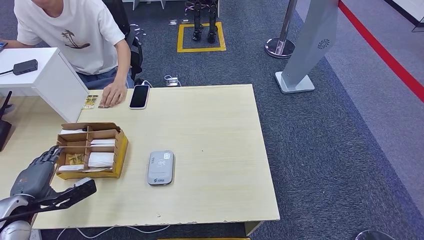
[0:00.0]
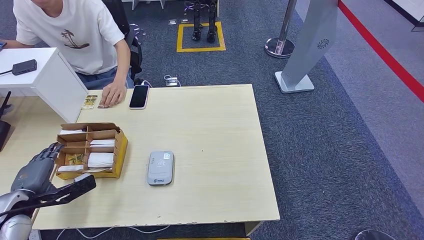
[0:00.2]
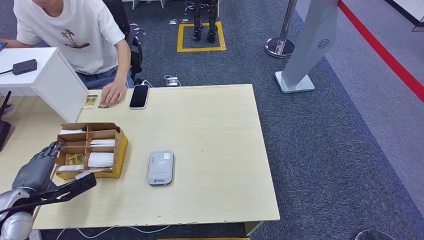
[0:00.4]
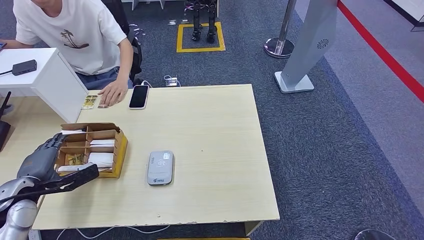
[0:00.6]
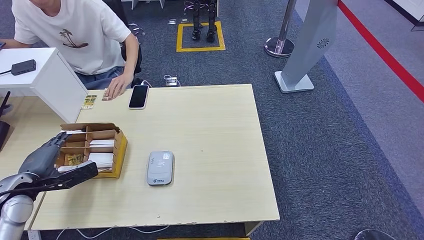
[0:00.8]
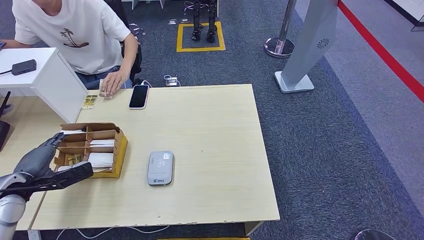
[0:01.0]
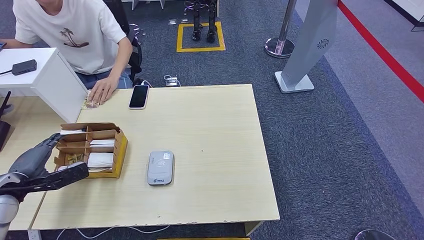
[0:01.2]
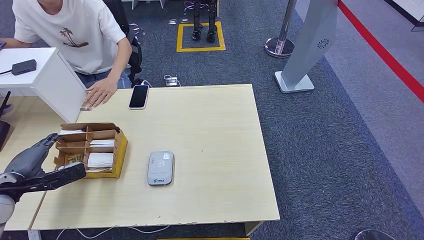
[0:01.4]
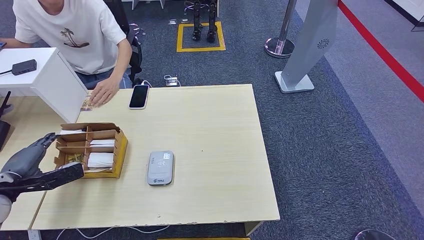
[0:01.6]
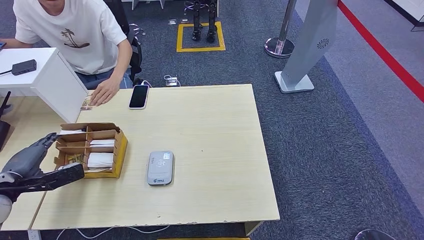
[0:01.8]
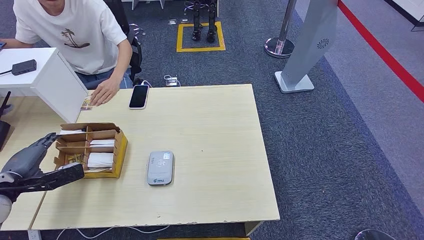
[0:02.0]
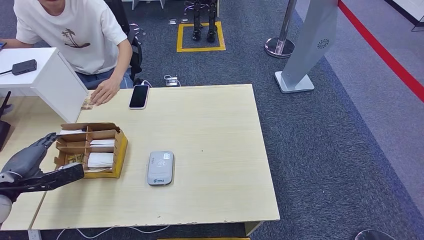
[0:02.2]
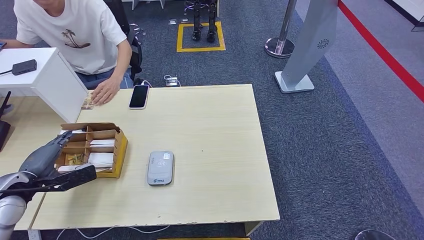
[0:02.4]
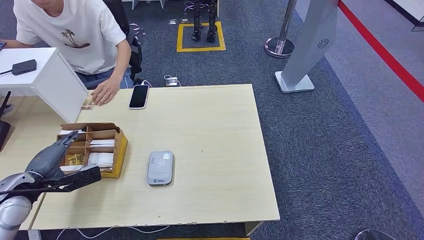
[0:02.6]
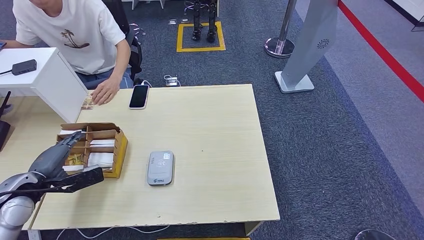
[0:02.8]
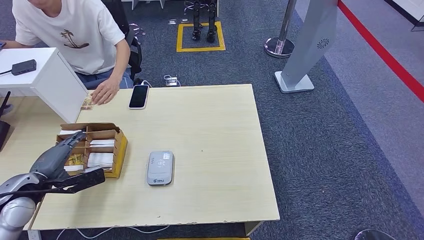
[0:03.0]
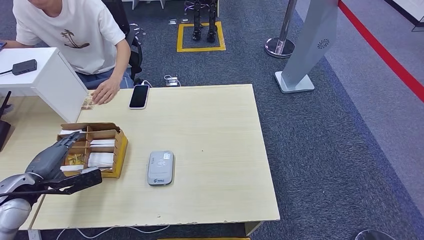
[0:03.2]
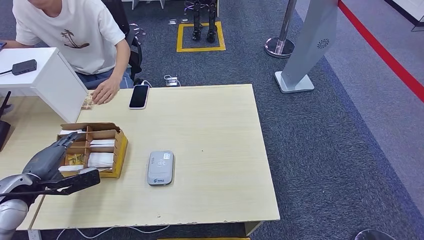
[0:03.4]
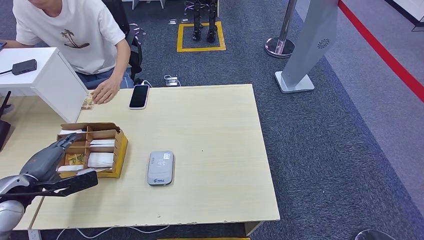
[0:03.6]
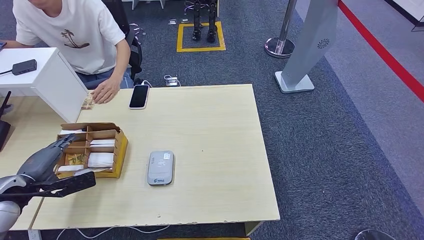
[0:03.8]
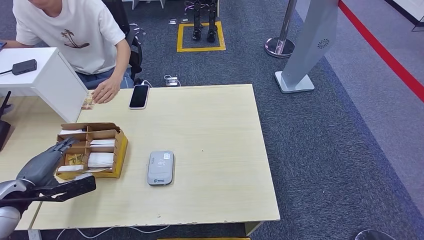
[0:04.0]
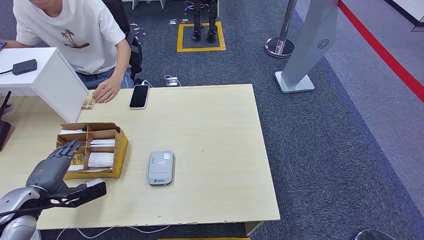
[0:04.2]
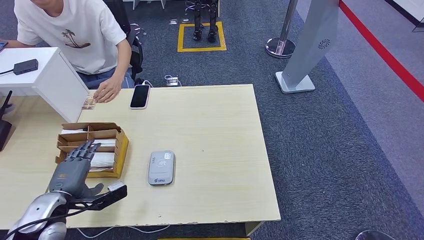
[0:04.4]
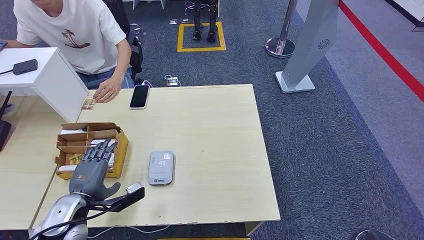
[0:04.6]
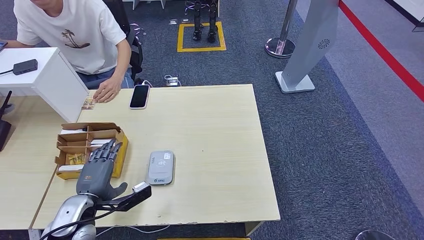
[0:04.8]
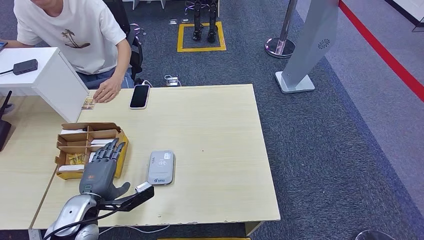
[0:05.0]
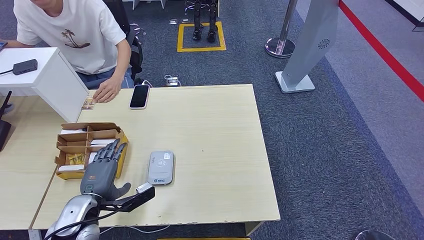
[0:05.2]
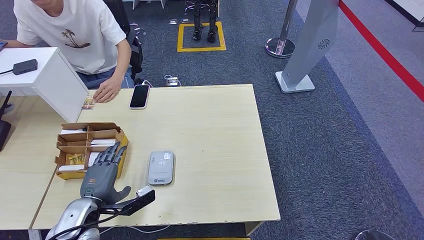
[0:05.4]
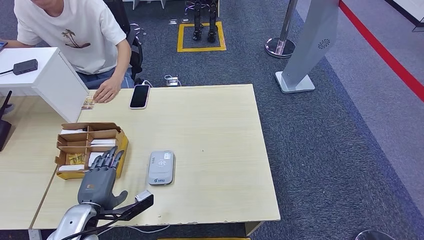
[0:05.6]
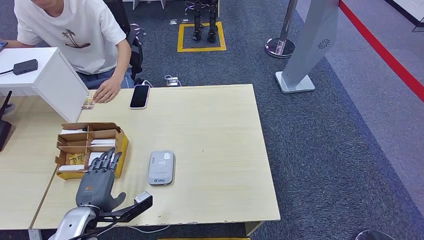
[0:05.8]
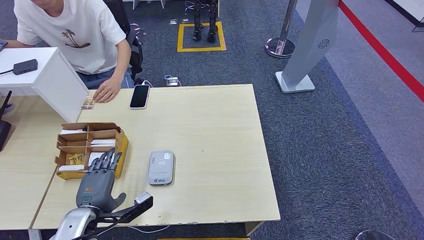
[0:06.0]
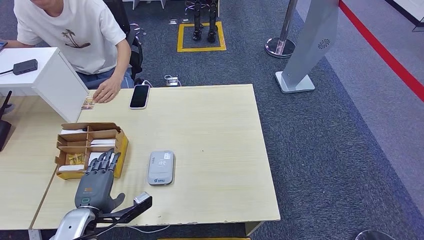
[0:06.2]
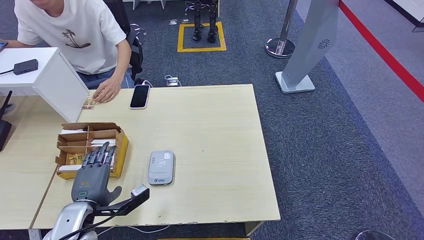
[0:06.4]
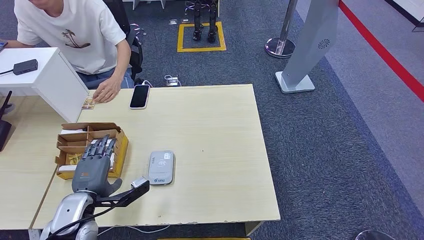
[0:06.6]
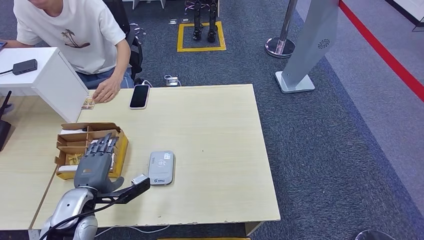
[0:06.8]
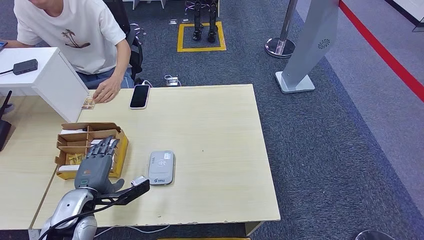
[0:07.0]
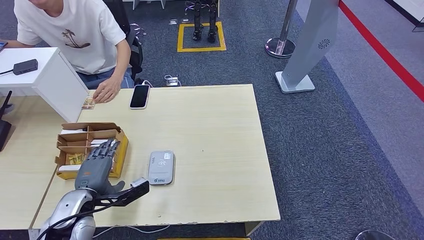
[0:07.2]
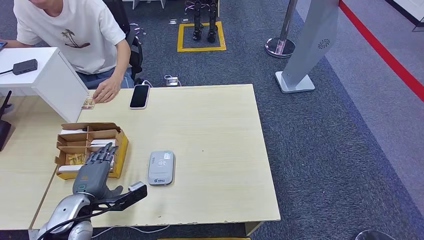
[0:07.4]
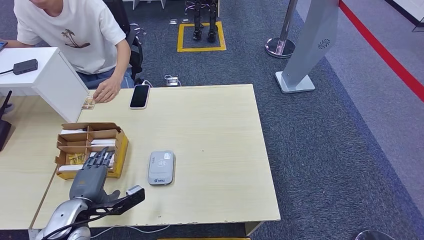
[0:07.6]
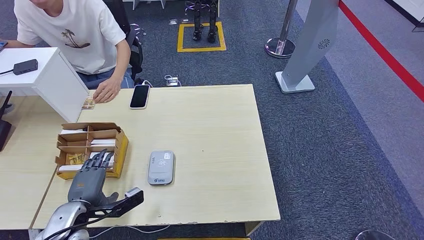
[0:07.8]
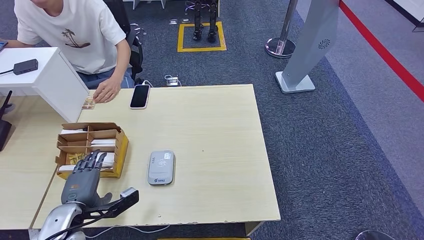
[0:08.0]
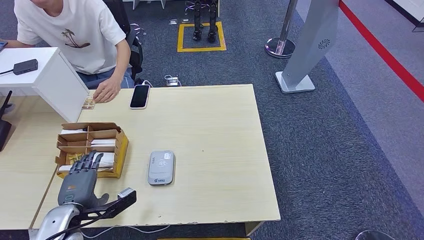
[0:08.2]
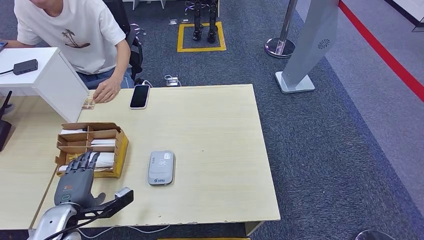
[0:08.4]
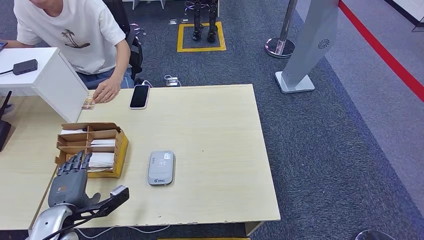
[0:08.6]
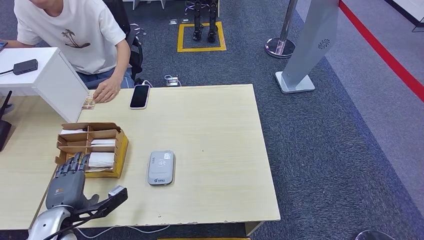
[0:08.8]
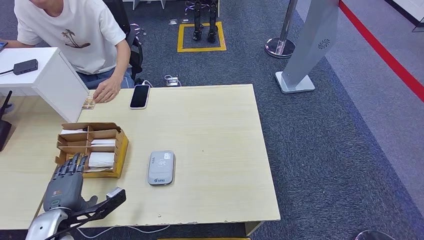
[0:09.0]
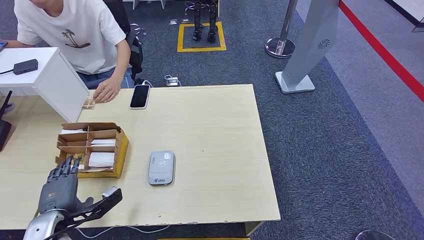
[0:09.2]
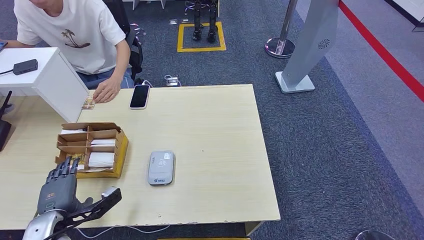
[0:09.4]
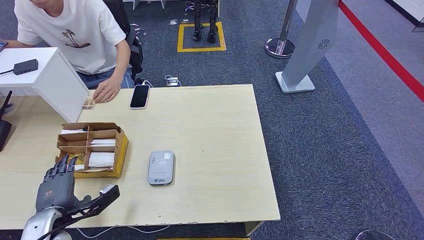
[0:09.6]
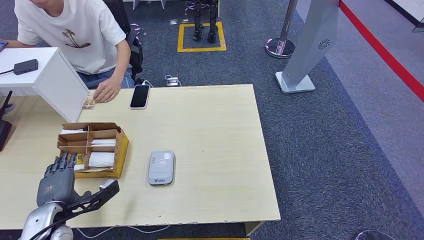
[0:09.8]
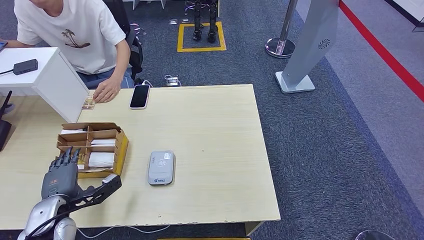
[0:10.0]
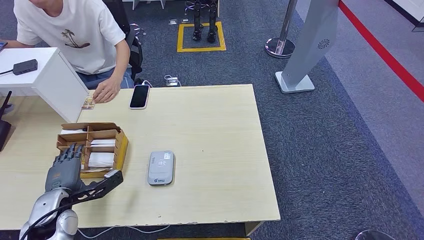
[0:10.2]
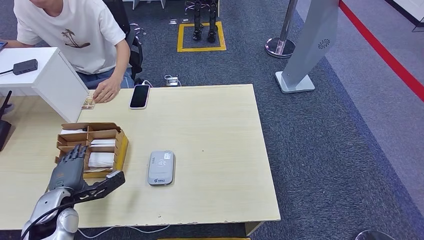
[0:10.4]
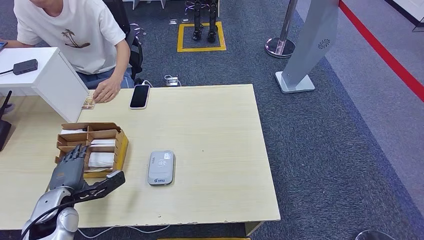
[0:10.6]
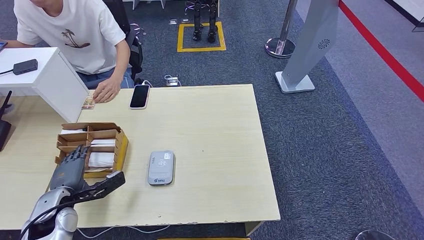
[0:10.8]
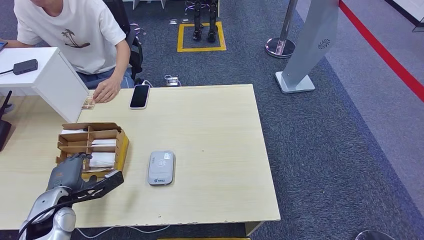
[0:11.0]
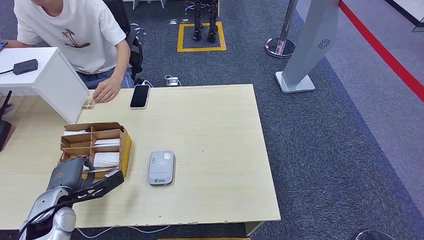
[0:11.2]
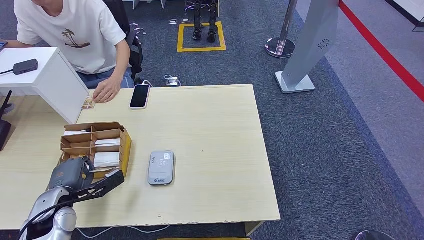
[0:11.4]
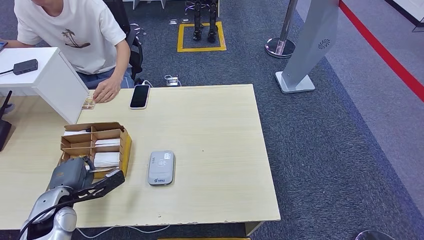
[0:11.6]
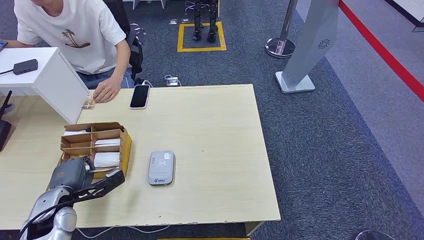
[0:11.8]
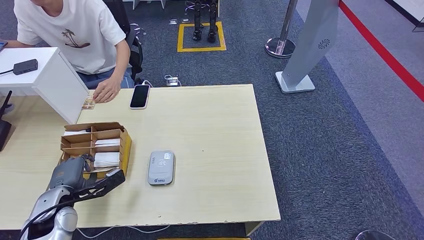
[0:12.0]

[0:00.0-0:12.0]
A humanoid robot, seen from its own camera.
0:00.0 to 0:01.6: The left hand changes place by approximately 5 cm.
0:01.6 to 0:03.0: The hands move only a little.
0:03.0 to 0:04.4: The left hand travels to the right by approximately 5 cm.
0:04.4 to 0:06.0: The left hand goes about 10 cm to the right.
0:06.0 to 0:09.0: The hands make only small movements.
0:09.0 to 0:10.4: The left hand goes roughly 5 cm forward.
0:10.4 to 0:12.0: The two hands keep their place.

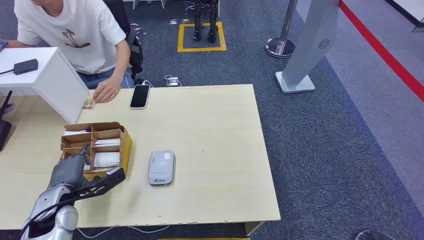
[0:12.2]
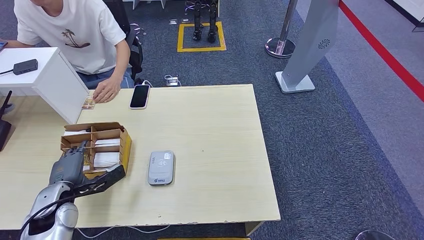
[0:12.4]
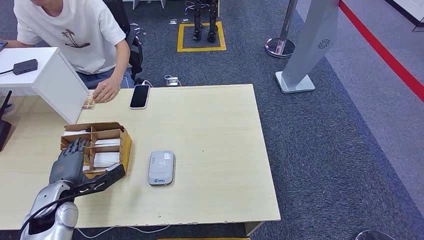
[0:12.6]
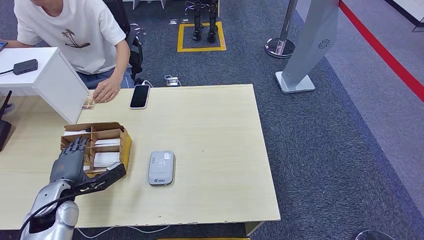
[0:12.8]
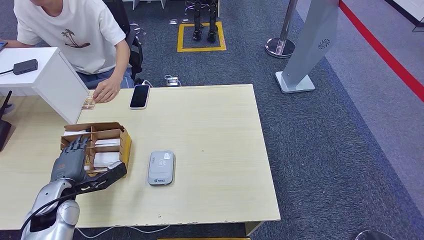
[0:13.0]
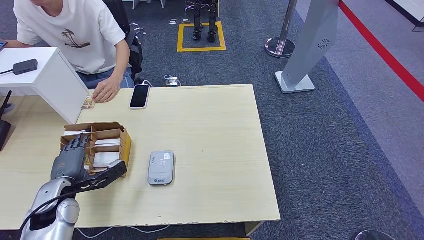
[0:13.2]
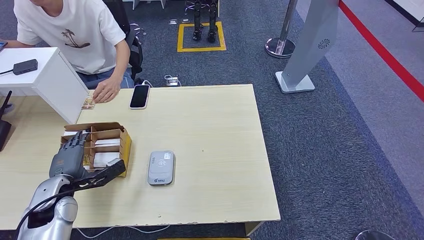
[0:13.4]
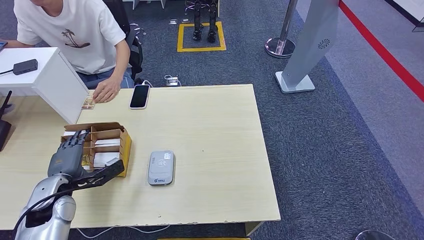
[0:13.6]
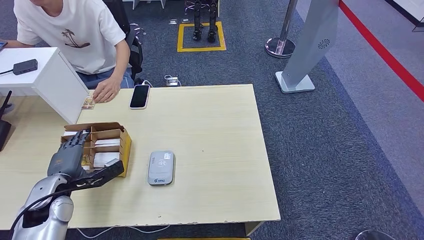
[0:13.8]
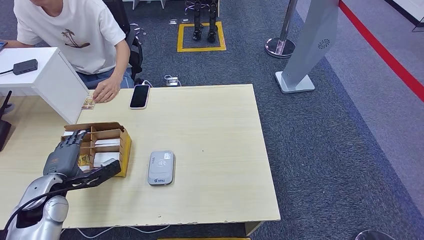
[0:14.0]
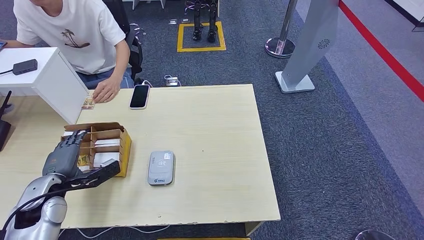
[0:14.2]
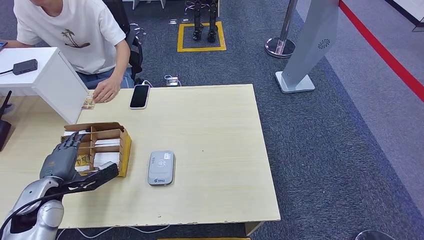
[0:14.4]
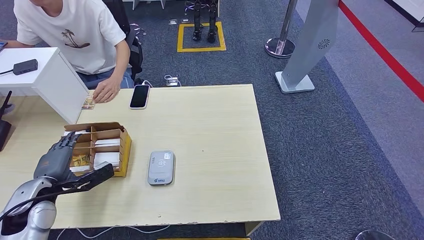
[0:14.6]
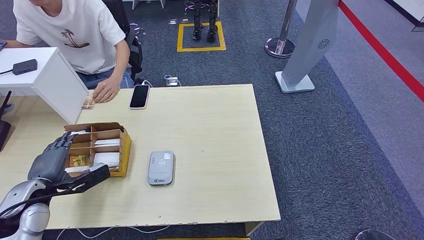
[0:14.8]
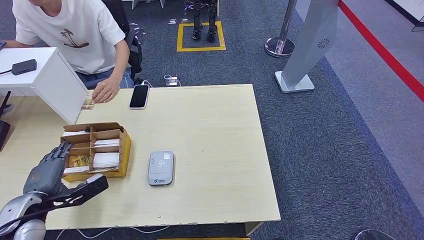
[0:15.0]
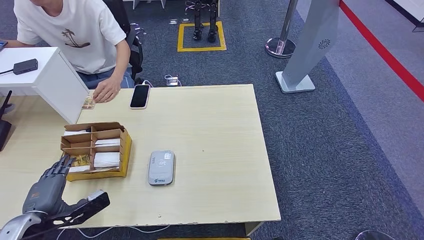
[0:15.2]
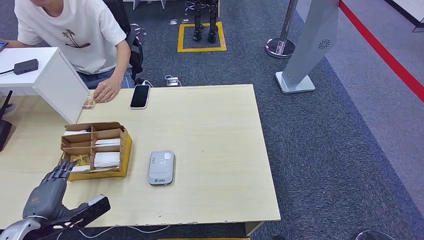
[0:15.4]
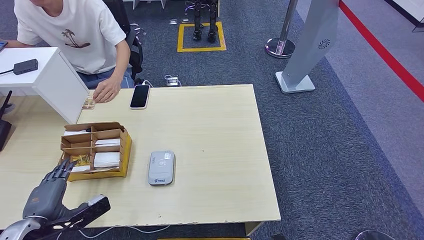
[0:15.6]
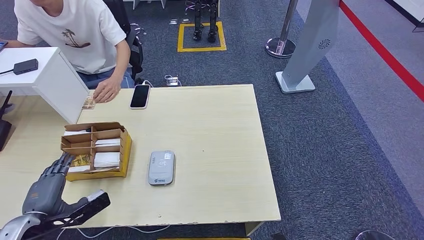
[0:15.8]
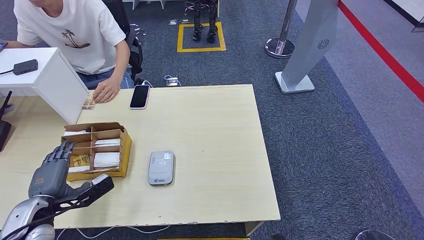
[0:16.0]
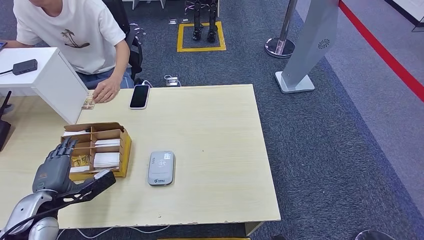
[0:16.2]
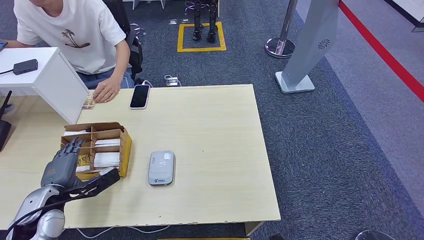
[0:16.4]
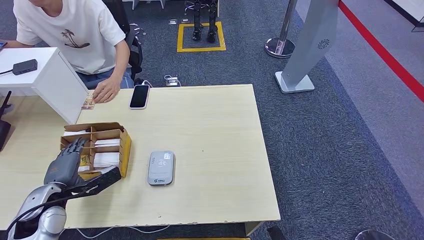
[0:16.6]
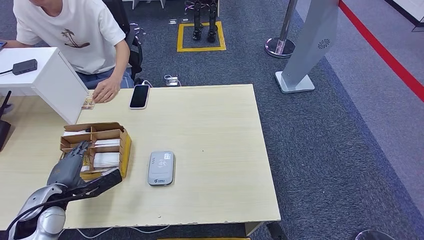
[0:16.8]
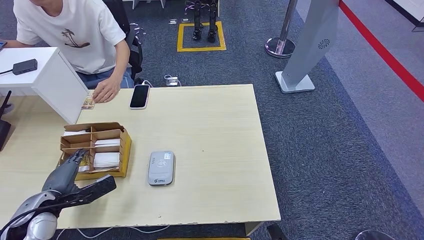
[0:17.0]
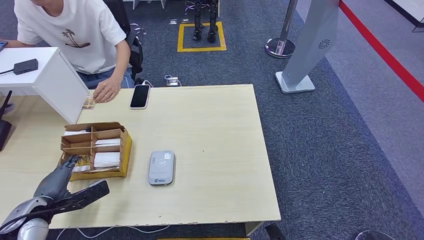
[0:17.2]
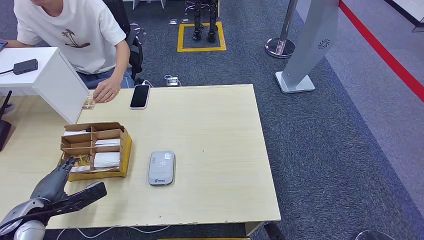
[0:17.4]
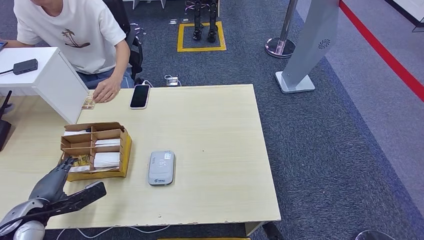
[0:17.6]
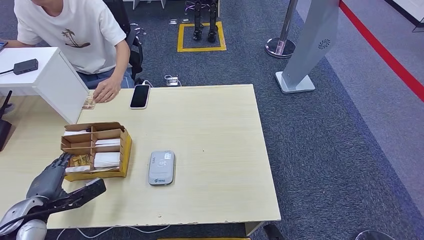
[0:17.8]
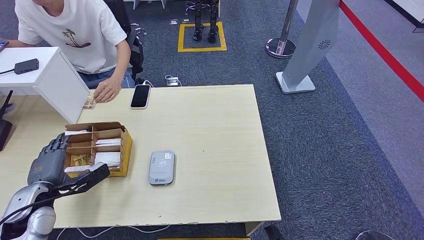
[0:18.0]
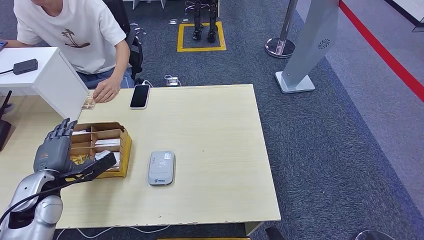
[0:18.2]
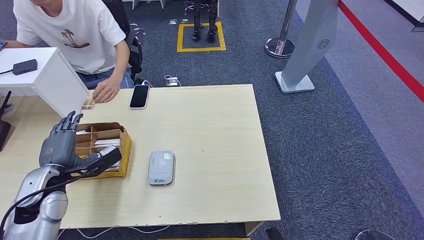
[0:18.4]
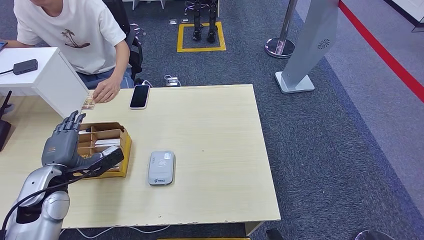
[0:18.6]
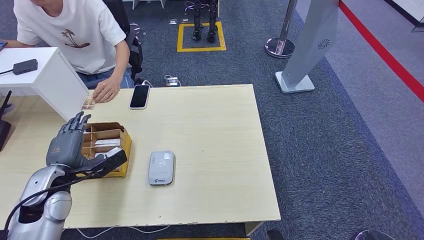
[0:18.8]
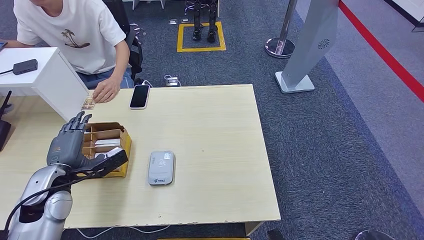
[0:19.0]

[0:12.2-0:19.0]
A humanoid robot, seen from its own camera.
0:12.2 to 0:13.6: The hands make only small movements.
0:13.6 to 0:15.0: The left hand heads backward, covering approximately 5 cm.
0:15.0 to 0:16.2: The hands stay close to where they were, moving slightly.
0:16.2 to 0:17.6: The left hand ends up approximately 5 cm from where it was.
0:17.6 to 0:19.0: The left hand is displaced to the right, upward and forward by roughly 10 cm.
